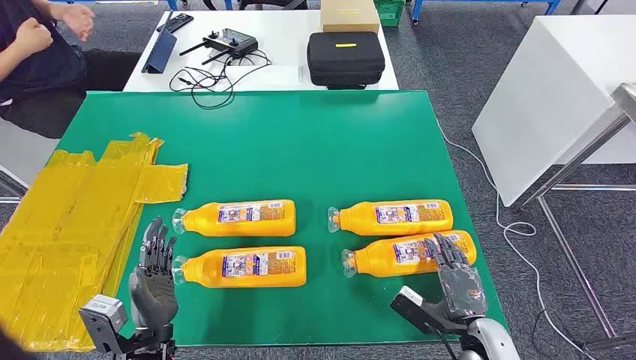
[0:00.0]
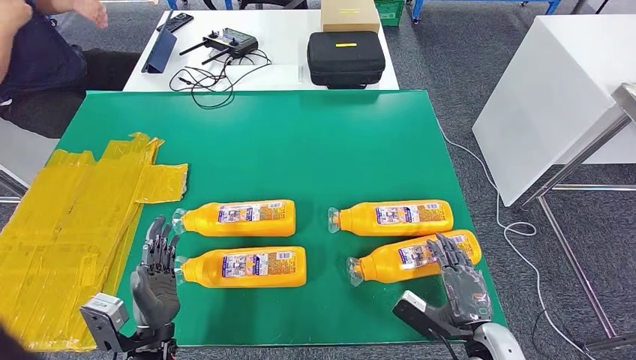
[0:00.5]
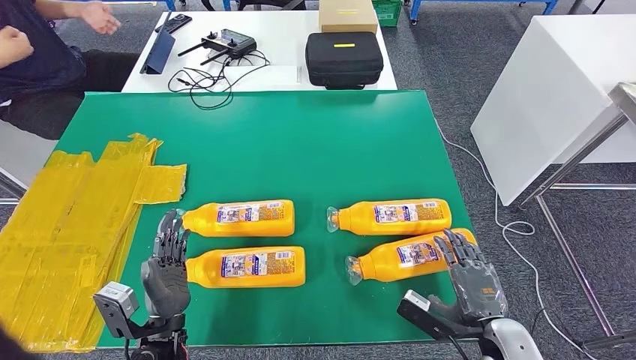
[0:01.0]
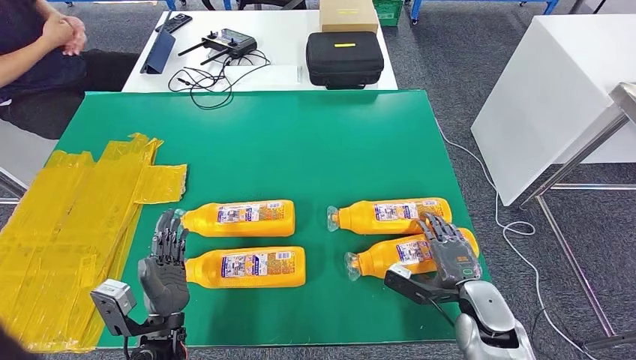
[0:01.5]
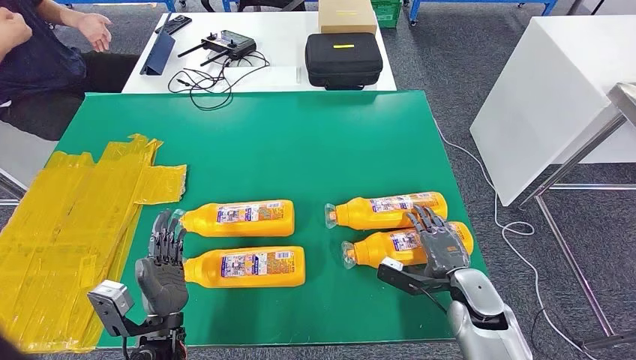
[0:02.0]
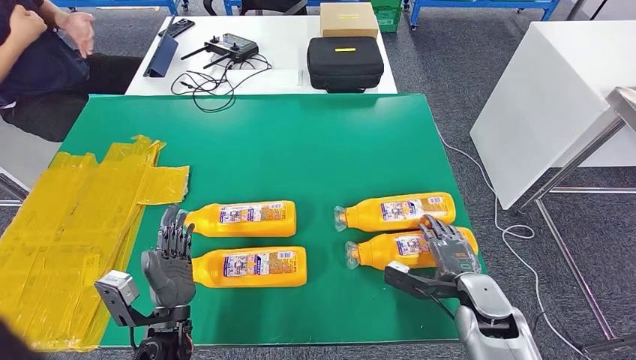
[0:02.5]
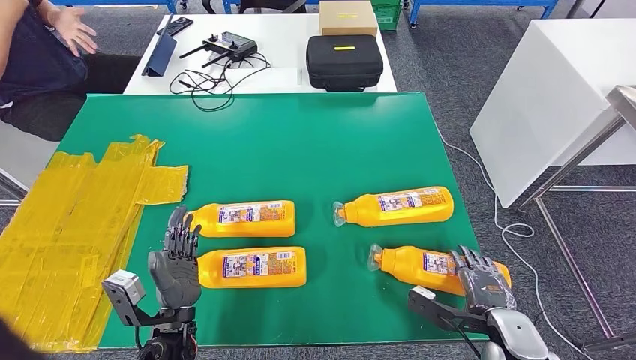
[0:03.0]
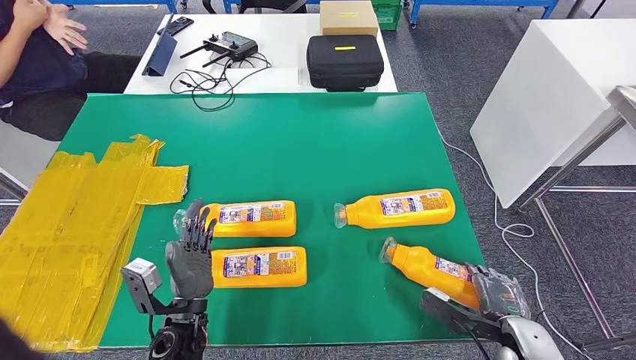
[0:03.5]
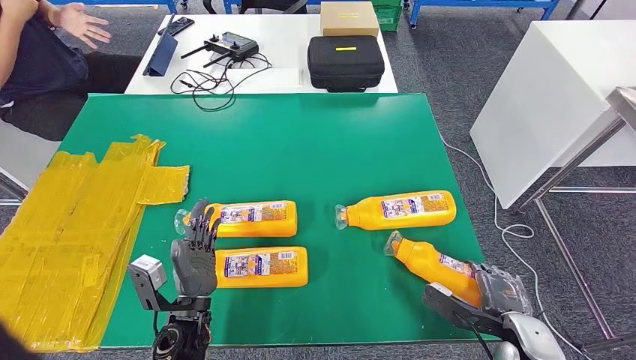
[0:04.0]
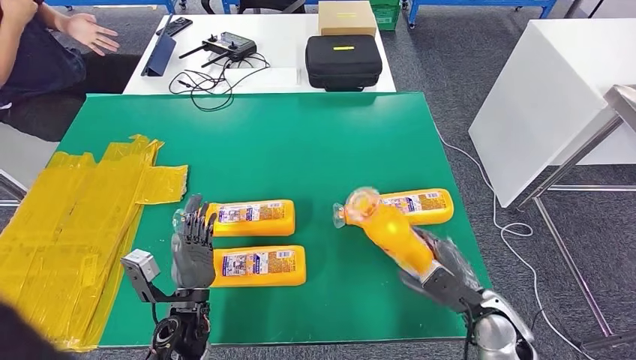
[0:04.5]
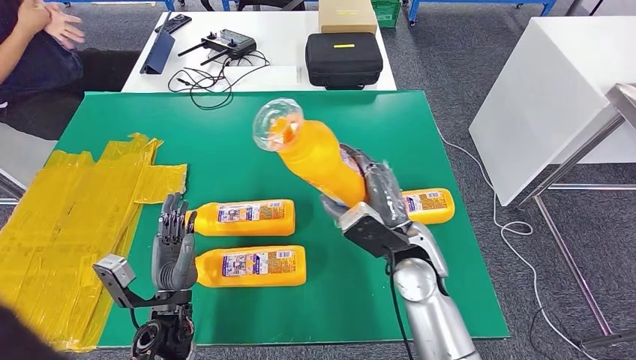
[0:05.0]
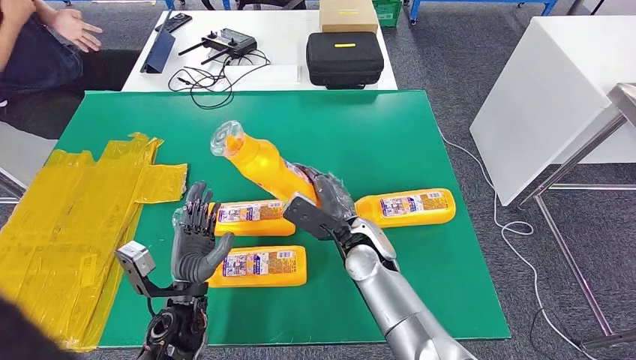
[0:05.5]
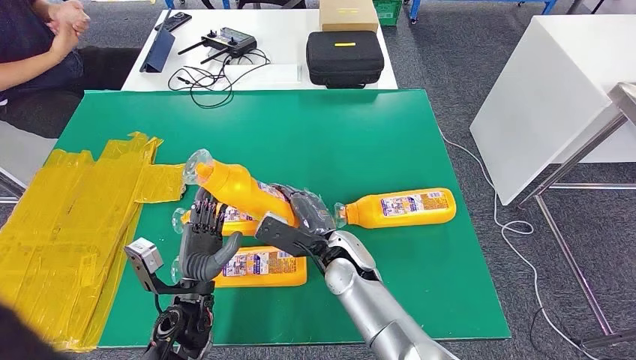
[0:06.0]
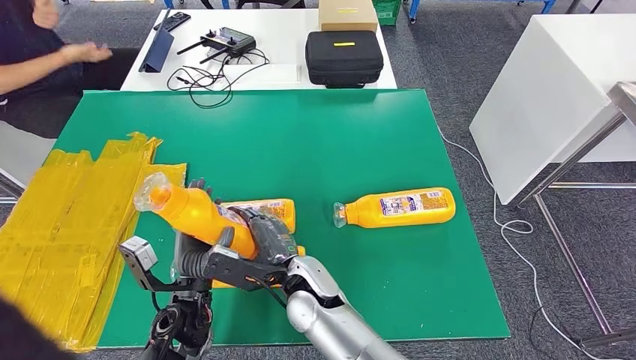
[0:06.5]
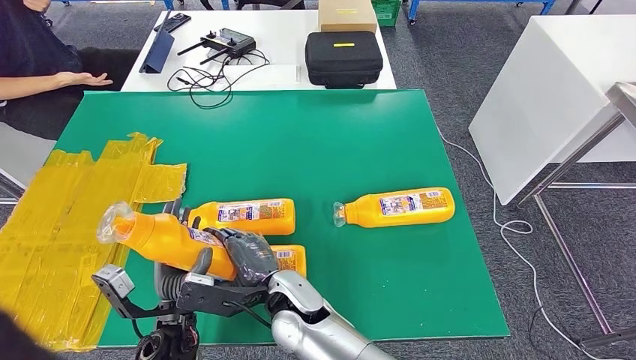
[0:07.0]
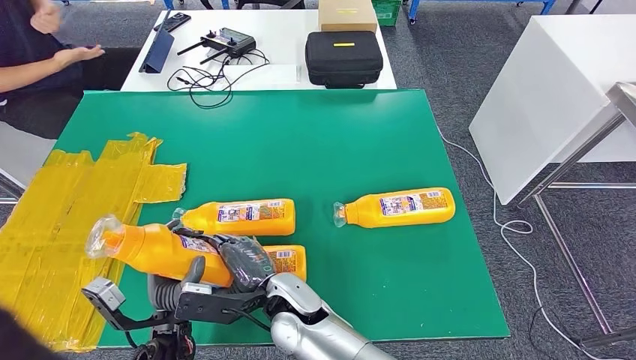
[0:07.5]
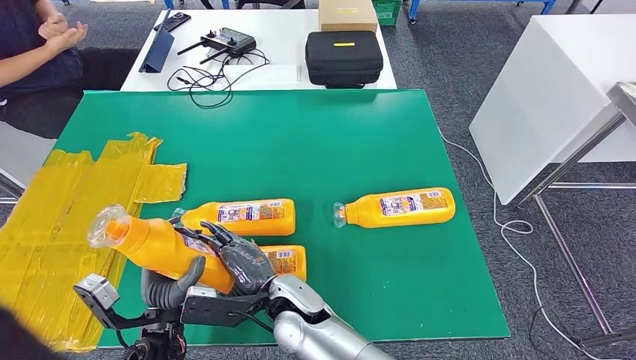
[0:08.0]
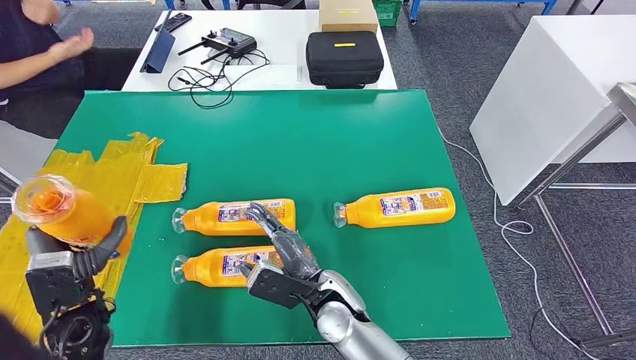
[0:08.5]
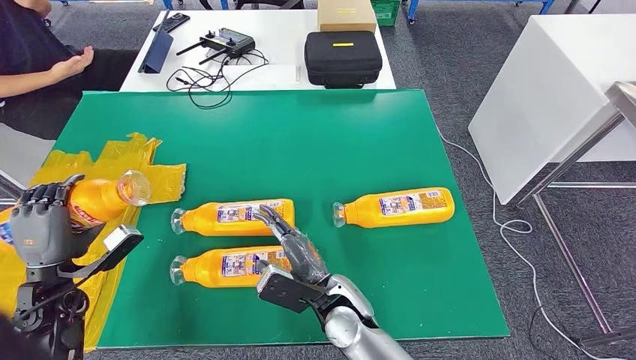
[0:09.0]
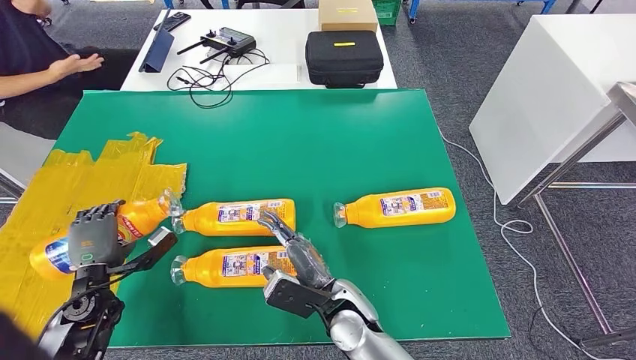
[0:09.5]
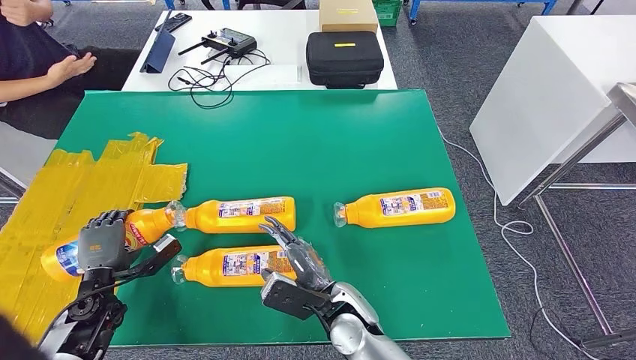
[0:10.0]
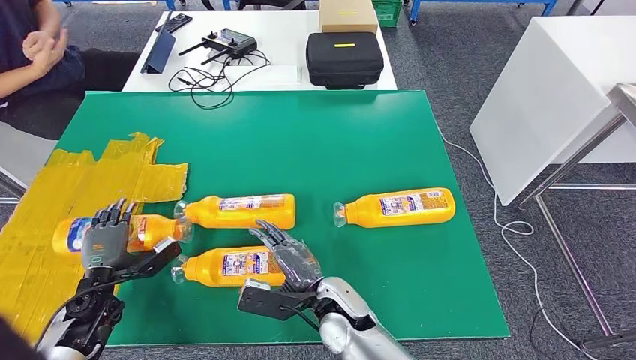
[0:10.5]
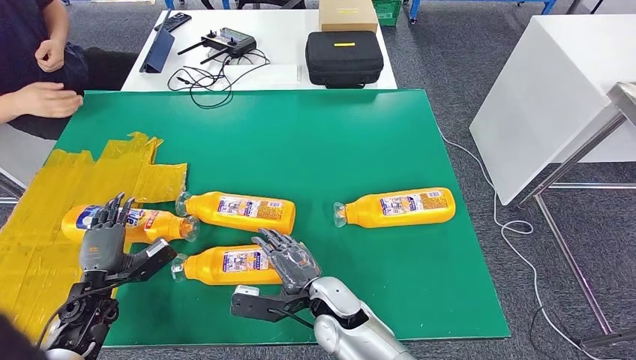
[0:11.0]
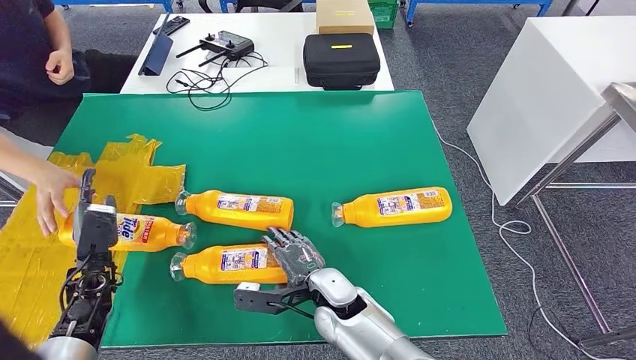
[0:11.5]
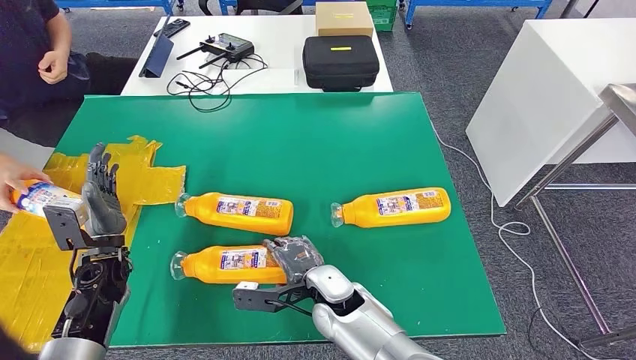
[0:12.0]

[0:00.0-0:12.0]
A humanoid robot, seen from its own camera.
Step, 0:00.0 to 0:06.0: Take the fast-moving consumer goods bottle from the table.
Step, 0:06.5 to 0:10.5: Flip the fast-moving consumer goods bottle to the front side.
0:06.0 to 0:08.0: The left hand ends up about 5 cm from where it was, while the right hand moves to the left and backward, approximately 10 cm.
0:08.0 to 0:10.0: The right hand is displaced to the right by roughly 10 cm. The left hand is displaced to the left by some 20 cm.

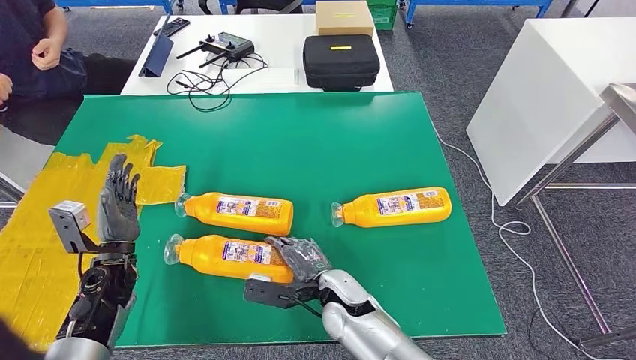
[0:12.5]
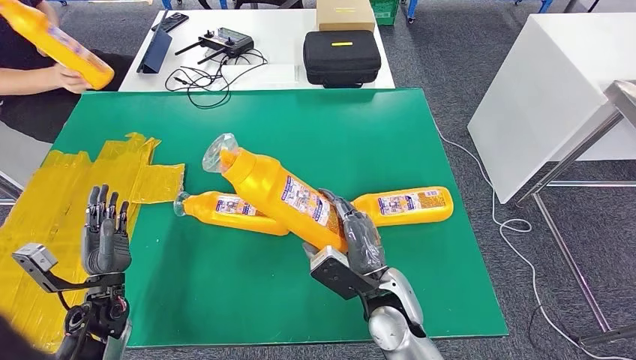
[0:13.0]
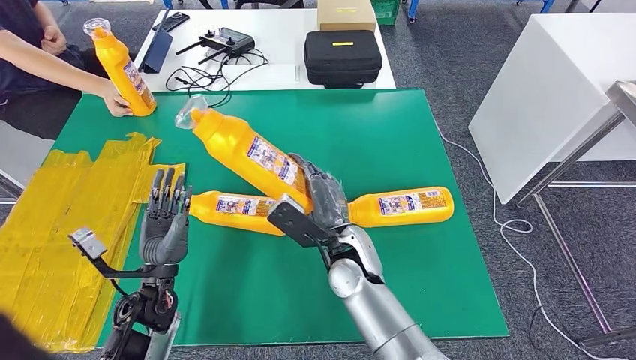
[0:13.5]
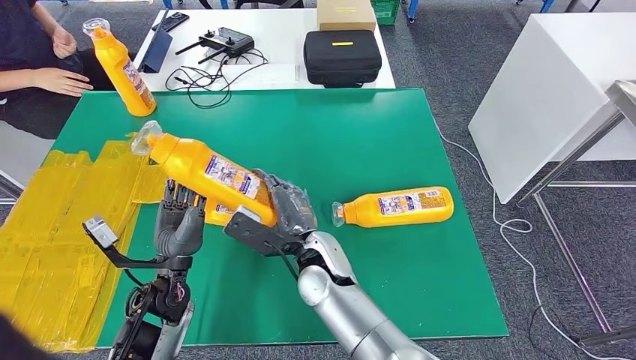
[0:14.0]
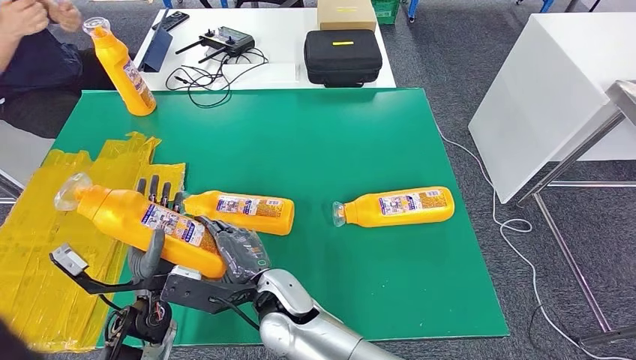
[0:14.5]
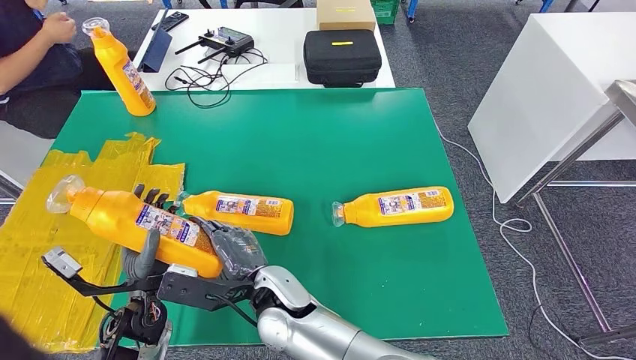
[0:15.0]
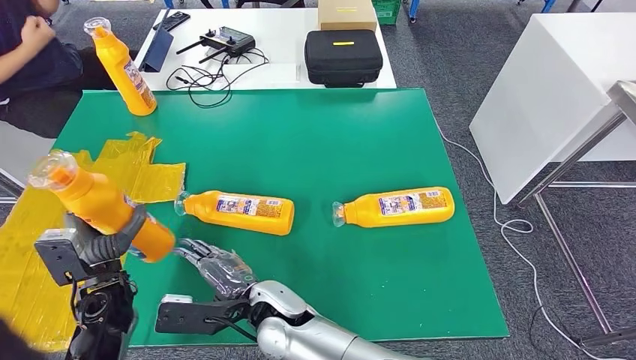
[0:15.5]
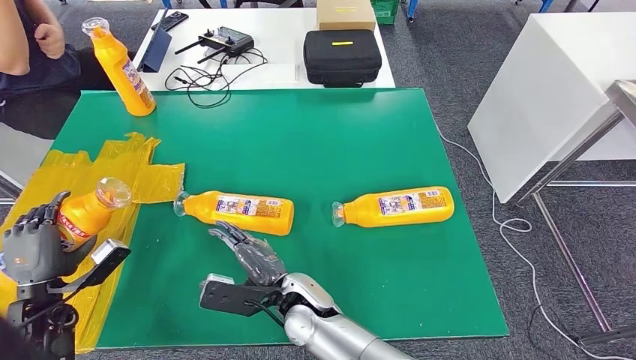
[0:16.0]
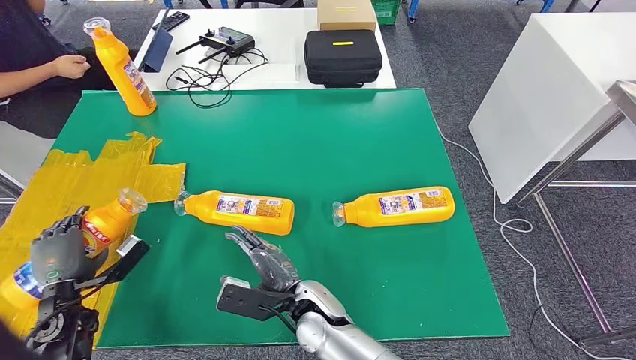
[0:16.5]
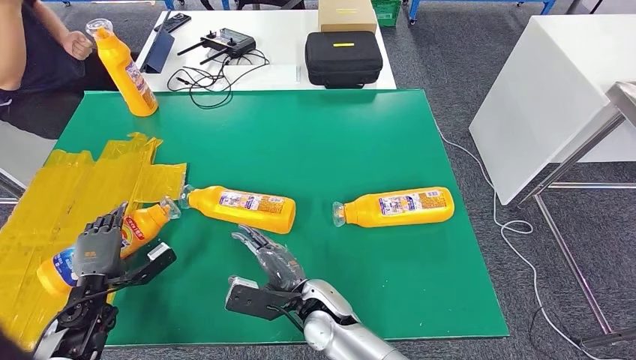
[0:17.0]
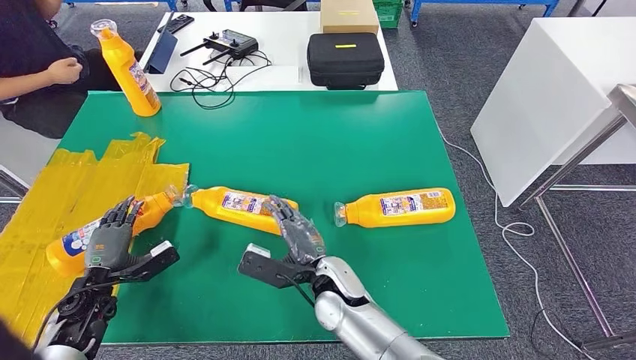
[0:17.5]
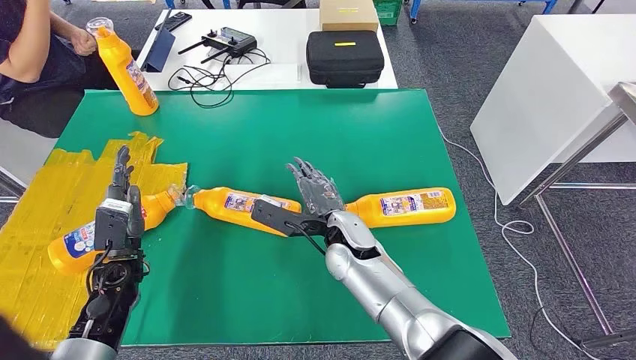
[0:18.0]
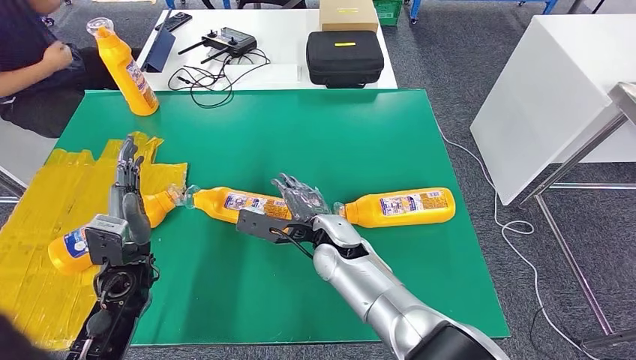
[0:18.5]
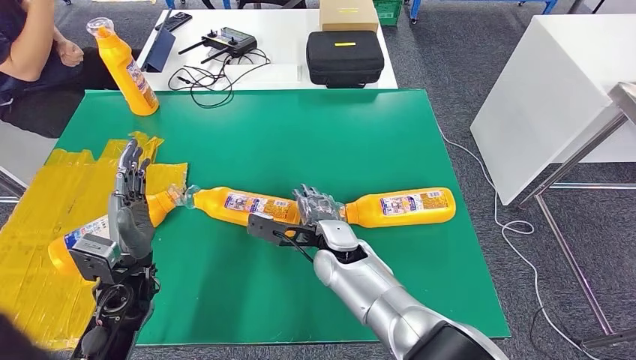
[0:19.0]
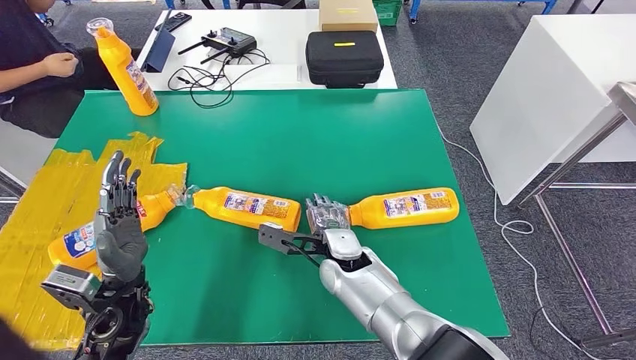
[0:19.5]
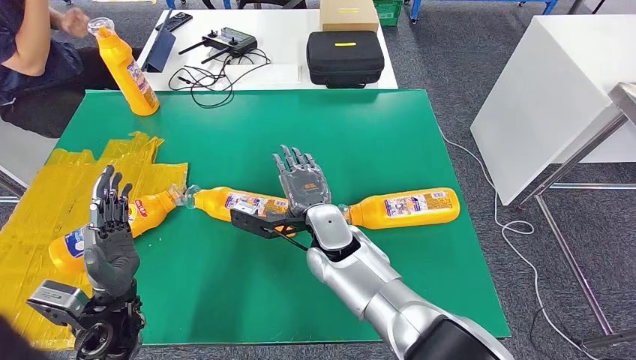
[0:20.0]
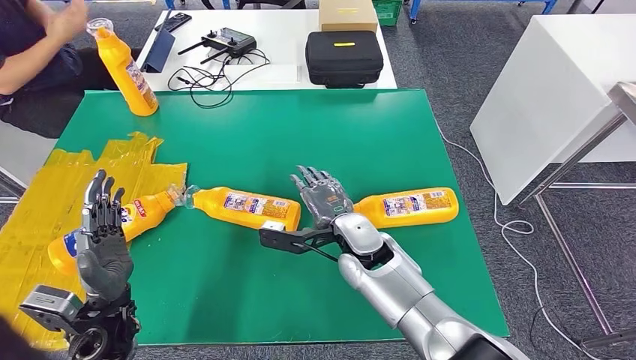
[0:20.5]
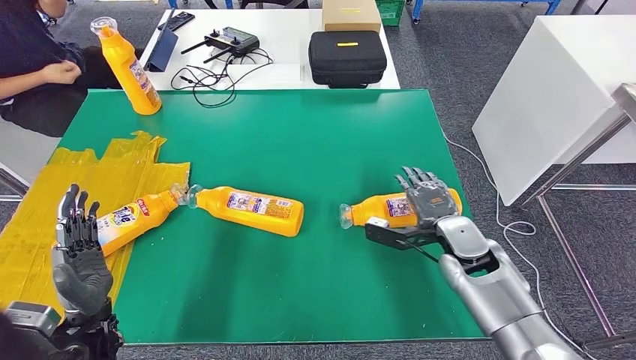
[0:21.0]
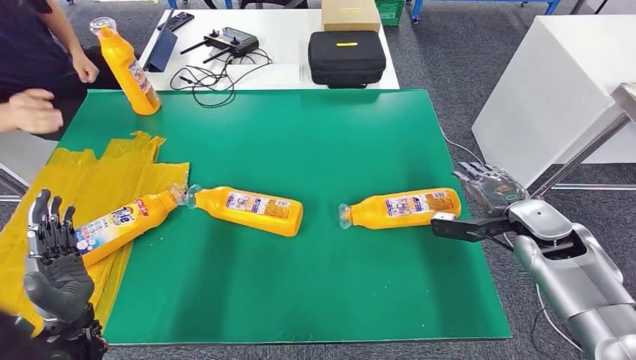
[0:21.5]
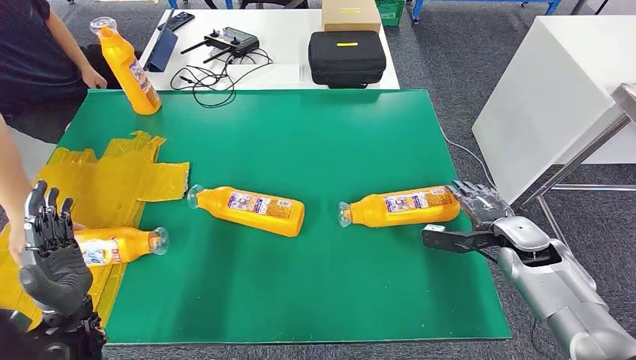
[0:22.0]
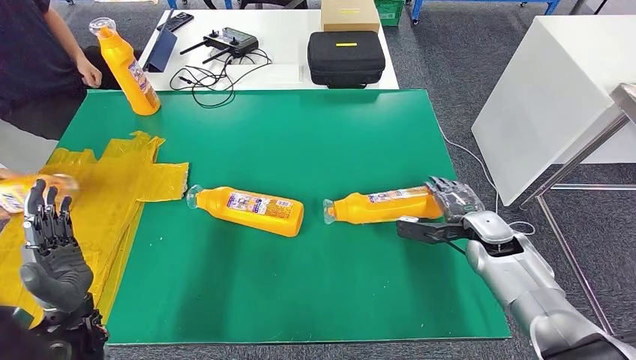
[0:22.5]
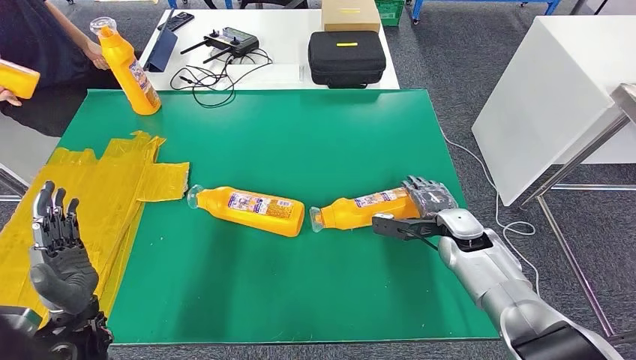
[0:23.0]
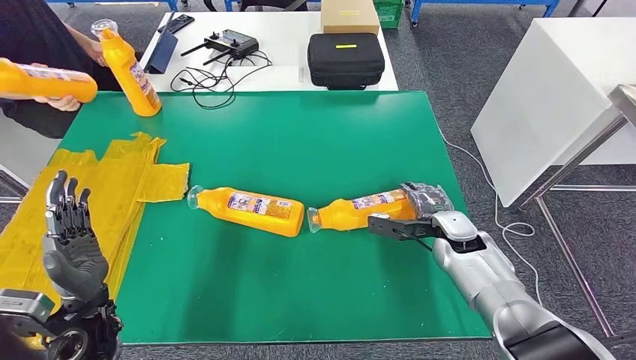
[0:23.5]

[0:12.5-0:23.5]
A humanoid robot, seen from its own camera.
Step, 0:12.5 to 0:15.0: Pick up the fast-moving consumer goods bottle from the table.
Step, 0:15.5 to 0:20.0: Flip the fast-moving consumer goods bottle to the front side.
0:14.5 to 0:16.0: The right hand shifts by approximately 5 cm; the left hand is displaced to the left by about 20 cm.
0:18.0 to 0:20.0: The left hand moves backward, about 5 cm.
